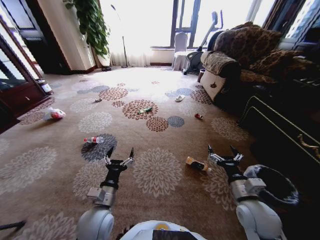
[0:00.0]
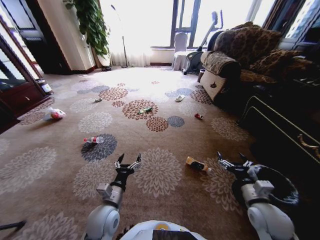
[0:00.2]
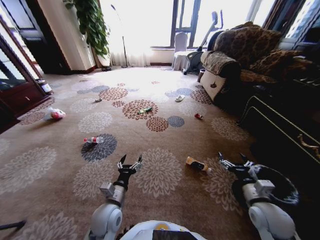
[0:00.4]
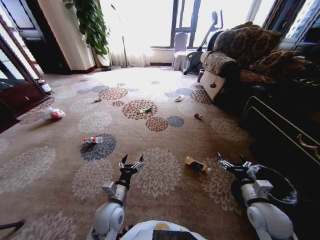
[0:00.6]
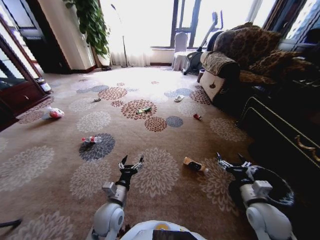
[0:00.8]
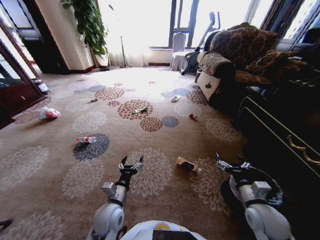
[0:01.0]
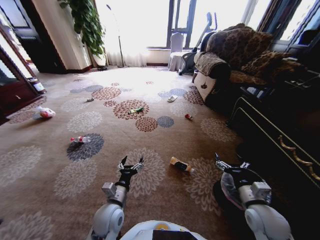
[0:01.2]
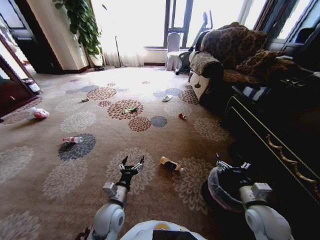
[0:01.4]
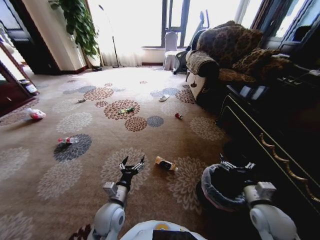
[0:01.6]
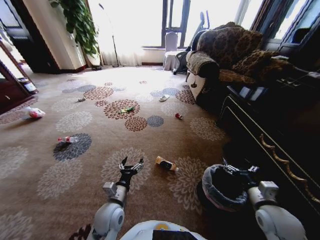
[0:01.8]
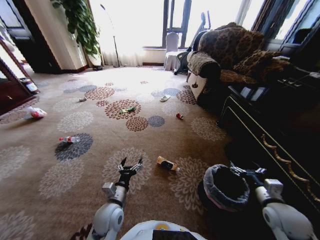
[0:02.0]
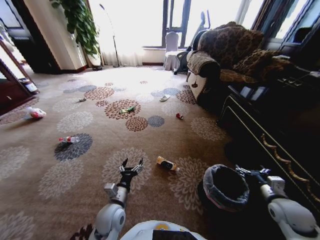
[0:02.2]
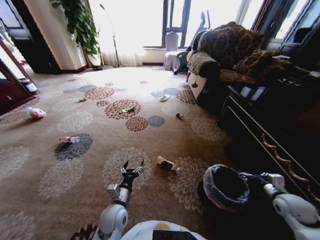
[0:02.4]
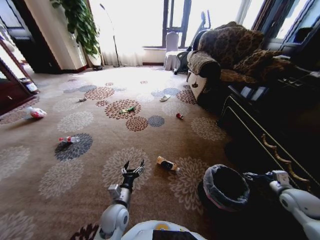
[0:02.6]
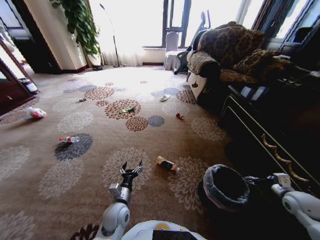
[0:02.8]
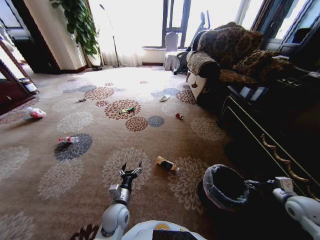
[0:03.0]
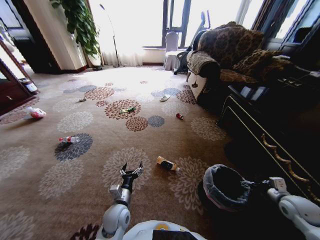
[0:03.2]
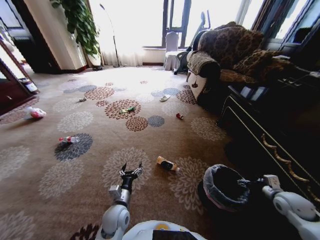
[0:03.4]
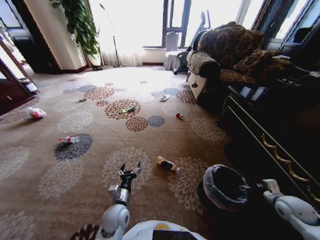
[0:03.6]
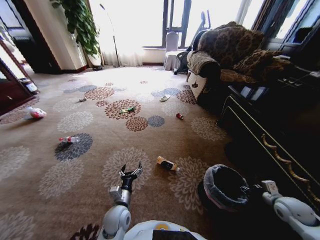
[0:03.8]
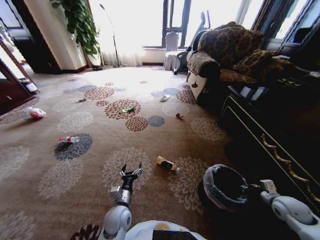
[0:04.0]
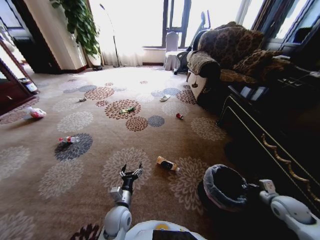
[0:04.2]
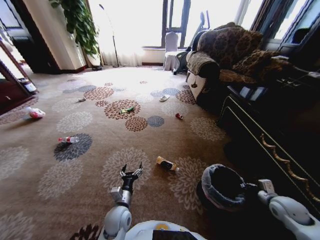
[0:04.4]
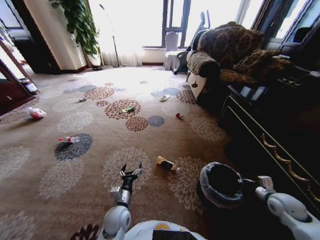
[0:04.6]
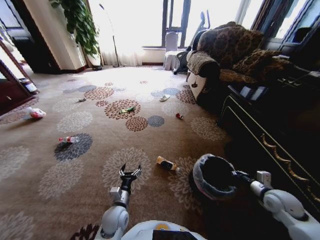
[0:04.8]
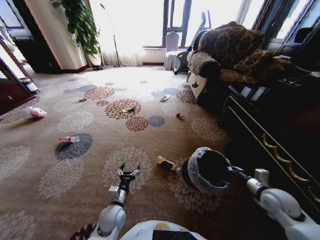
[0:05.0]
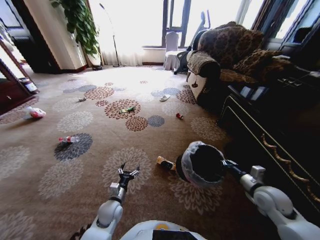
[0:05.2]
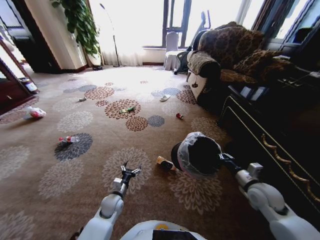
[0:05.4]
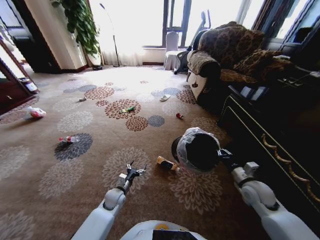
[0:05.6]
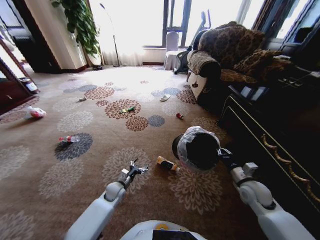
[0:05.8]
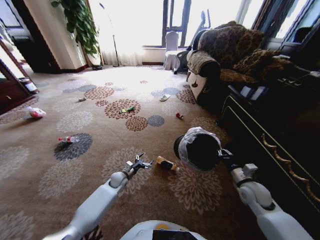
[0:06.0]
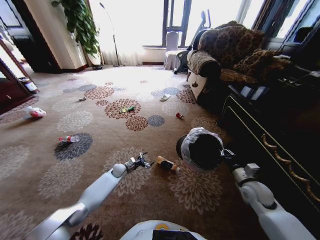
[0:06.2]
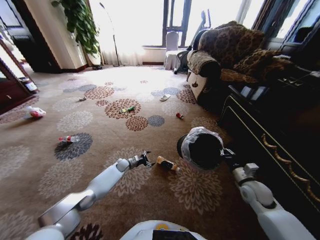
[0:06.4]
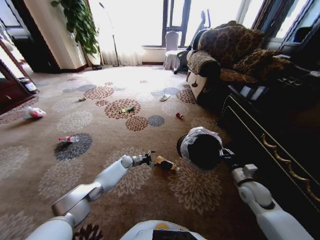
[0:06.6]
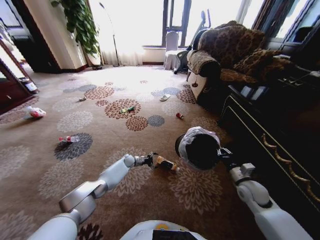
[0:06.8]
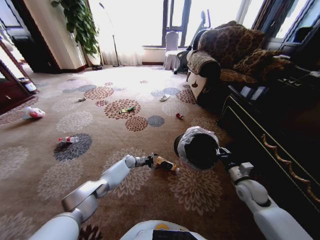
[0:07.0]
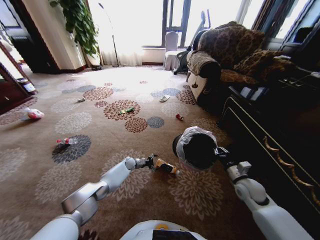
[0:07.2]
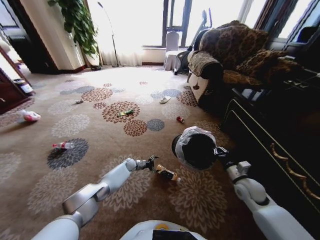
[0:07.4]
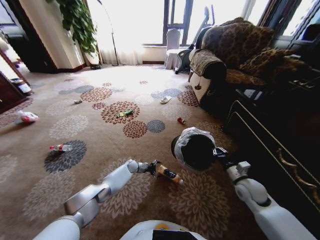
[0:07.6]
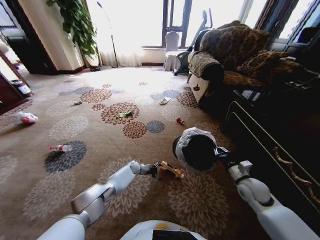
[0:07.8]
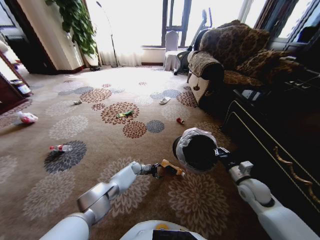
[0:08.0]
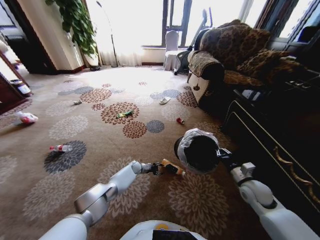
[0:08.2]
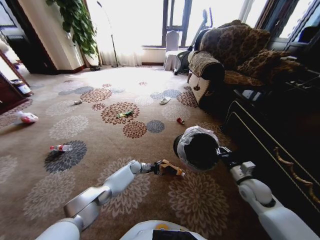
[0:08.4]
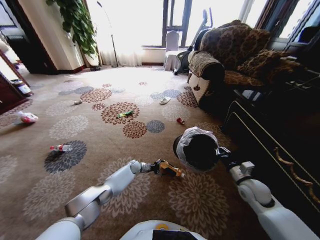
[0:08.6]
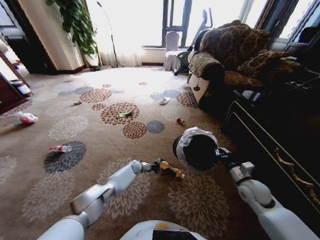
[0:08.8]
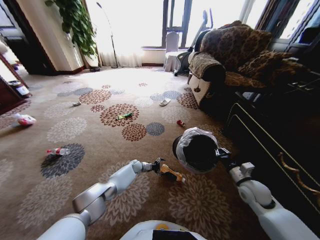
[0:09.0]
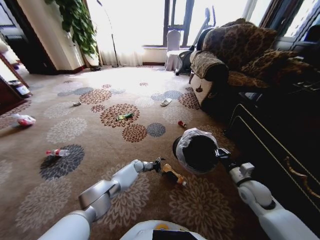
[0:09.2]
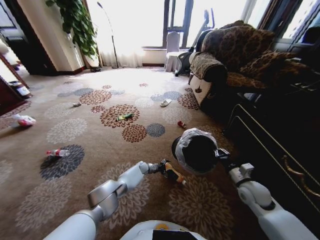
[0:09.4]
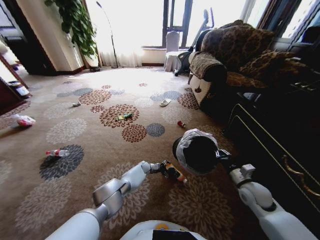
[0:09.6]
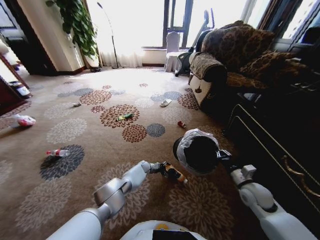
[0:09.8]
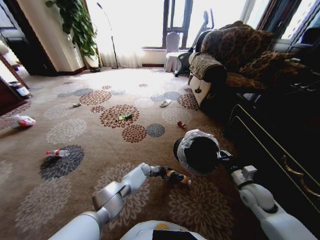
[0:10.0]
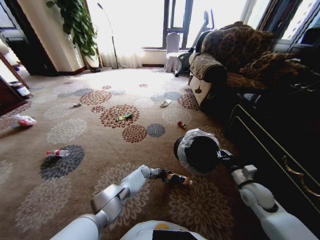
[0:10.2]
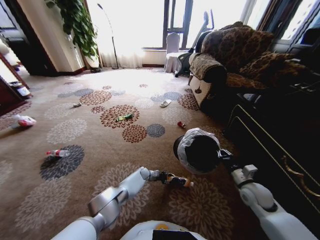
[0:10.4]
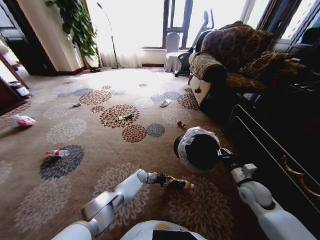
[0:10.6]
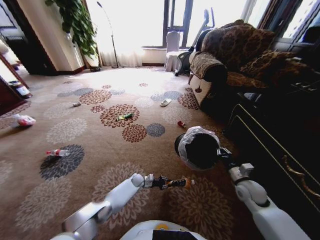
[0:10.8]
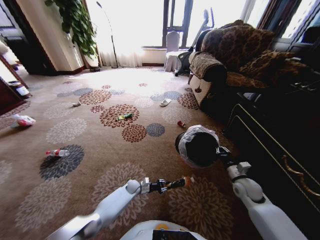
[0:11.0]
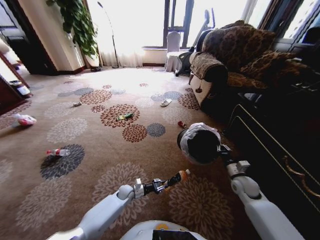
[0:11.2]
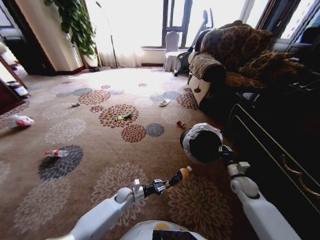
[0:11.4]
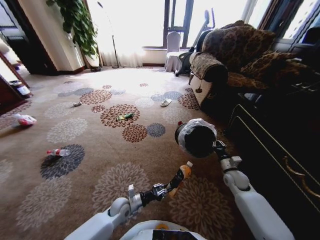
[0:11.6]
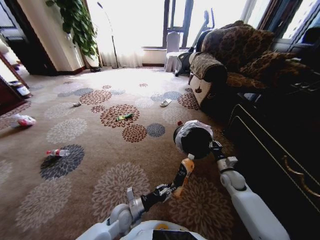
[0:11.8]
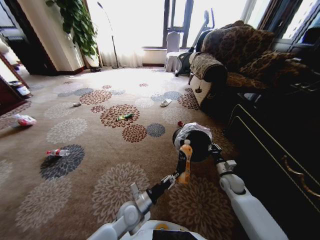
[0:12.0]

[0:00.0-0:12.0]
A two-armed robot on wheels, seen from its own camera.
Task of the whole recording: Pick up the trash from the ground and place it into the trash bin.
0:01.6 to 0:03.0: The left gripper moves downward, about 5 cm. The right gripper is displaced to the right by about 15 cm.
0:03.0 to 0:04.4: The right gripper changes place by roughly 5 cm, and closes up.
0:04.4 to 0:06.0: The left gripper shifts approximately 20 cm forward, downward and to the left, while the right gripper heads to the left, covering approximately 10 cm.
0:06.0 to 0:07.6: The left gripper travels forward and downward by approximately 15 cm.
0:07.6 to 0:09.0: The left gripper closes and opens again.
0:09.0 to 0:10.4: The left gripper travels to the right by roughly 5 cm, and closes.
0:10.4 to 0:12.0: The right gripper heads downward and forward, covering approximately 10 cm. Meanwhile the left gripper is displaced backward and upward by approximately 30 cm.

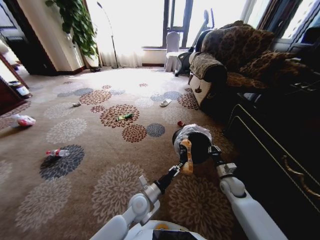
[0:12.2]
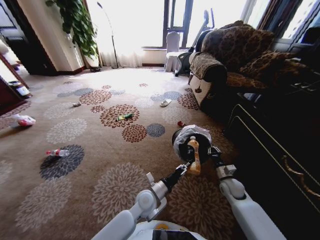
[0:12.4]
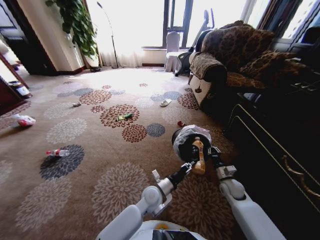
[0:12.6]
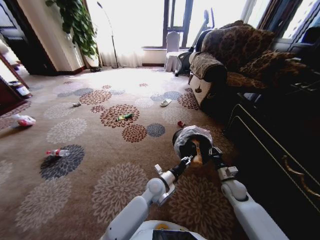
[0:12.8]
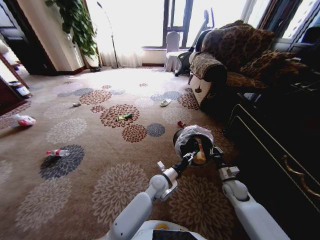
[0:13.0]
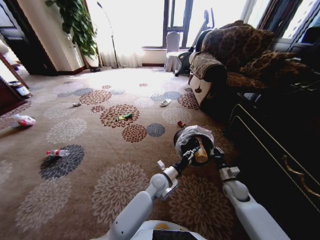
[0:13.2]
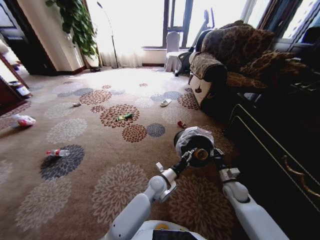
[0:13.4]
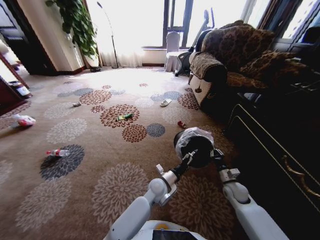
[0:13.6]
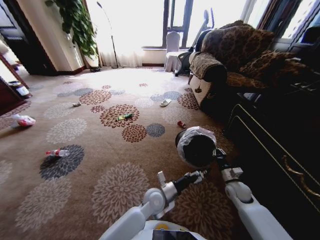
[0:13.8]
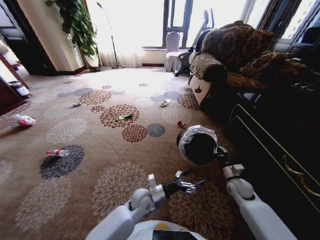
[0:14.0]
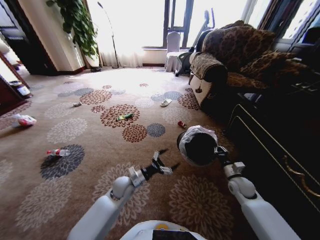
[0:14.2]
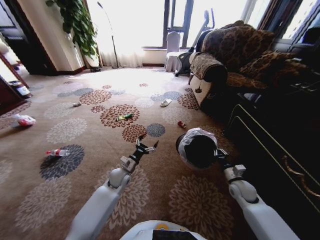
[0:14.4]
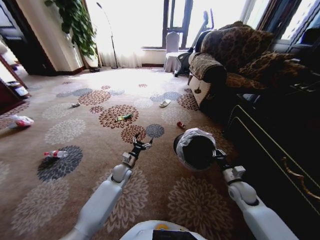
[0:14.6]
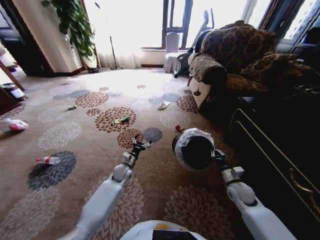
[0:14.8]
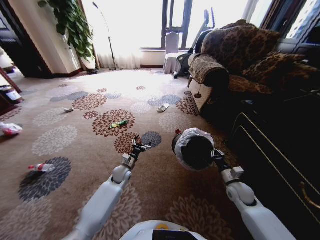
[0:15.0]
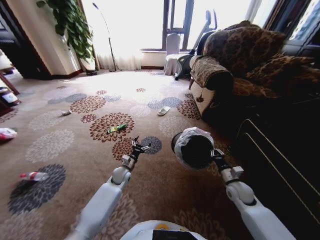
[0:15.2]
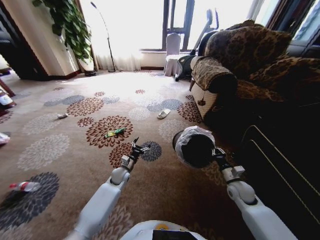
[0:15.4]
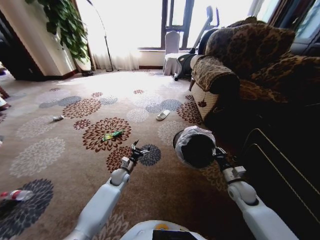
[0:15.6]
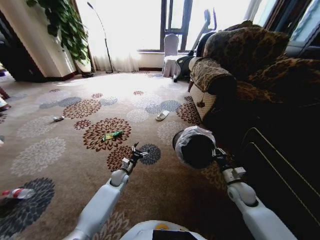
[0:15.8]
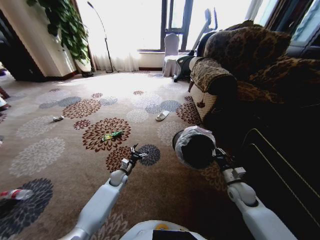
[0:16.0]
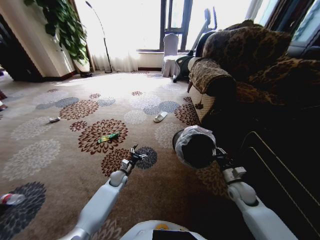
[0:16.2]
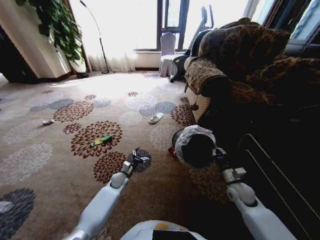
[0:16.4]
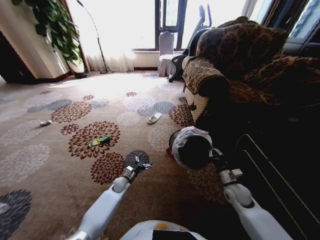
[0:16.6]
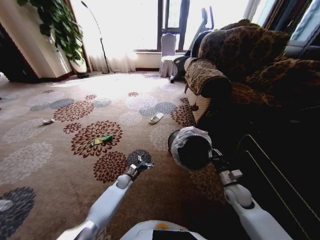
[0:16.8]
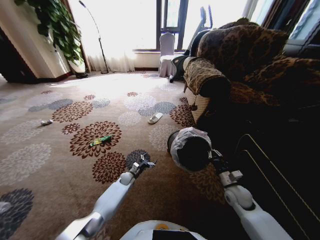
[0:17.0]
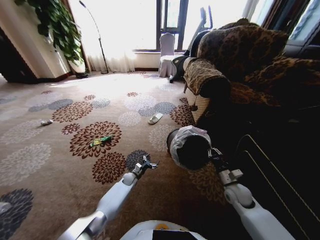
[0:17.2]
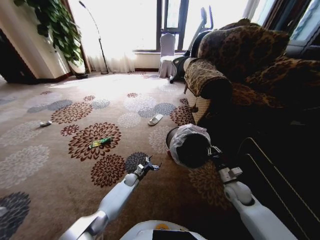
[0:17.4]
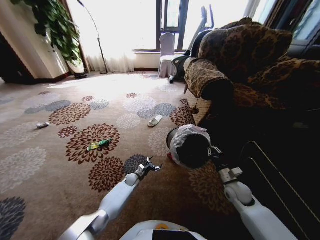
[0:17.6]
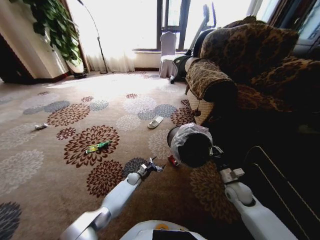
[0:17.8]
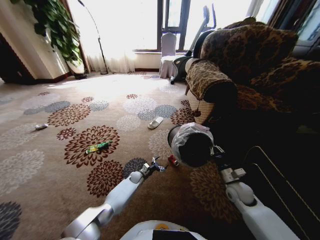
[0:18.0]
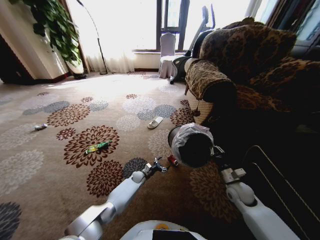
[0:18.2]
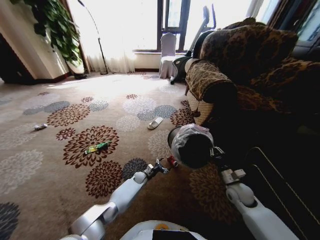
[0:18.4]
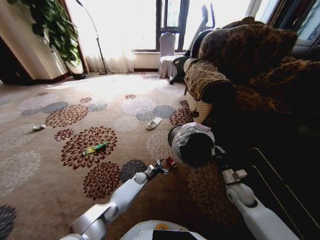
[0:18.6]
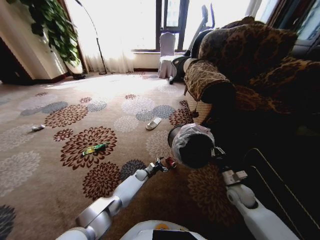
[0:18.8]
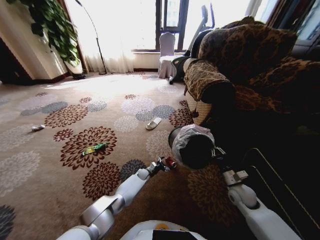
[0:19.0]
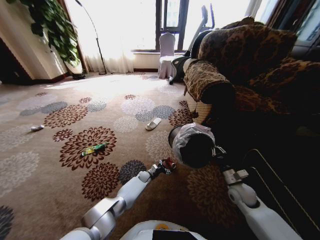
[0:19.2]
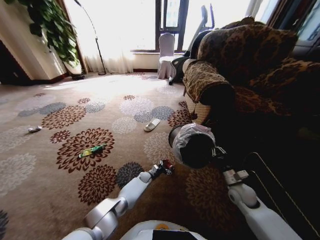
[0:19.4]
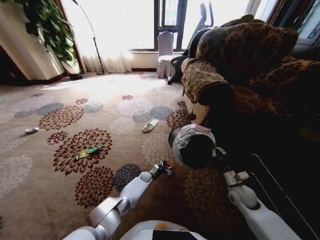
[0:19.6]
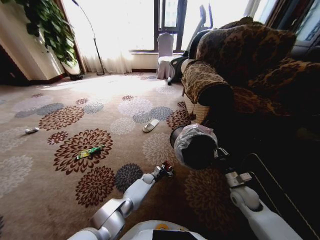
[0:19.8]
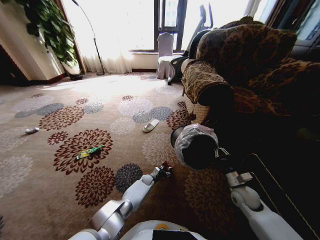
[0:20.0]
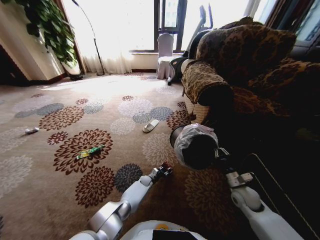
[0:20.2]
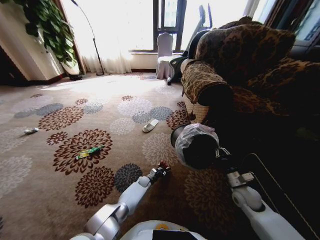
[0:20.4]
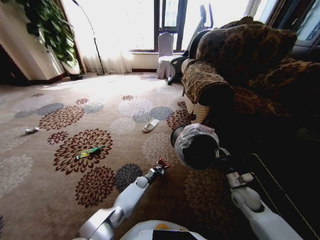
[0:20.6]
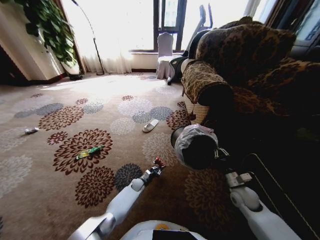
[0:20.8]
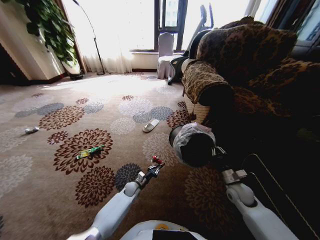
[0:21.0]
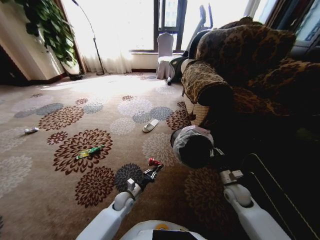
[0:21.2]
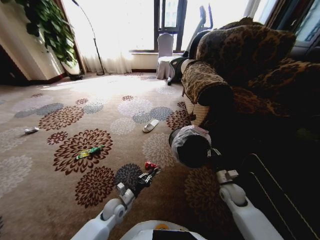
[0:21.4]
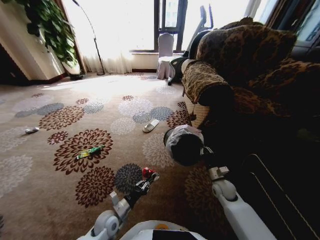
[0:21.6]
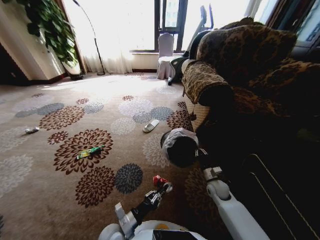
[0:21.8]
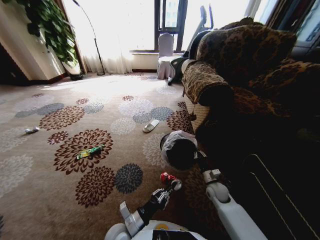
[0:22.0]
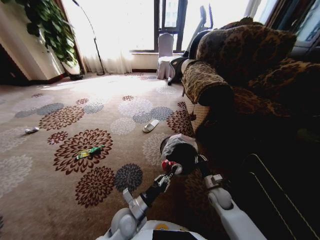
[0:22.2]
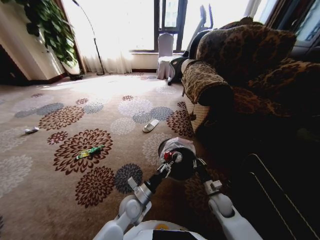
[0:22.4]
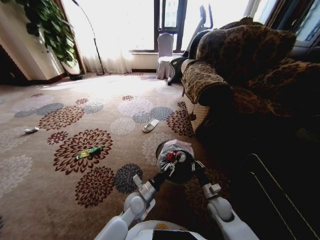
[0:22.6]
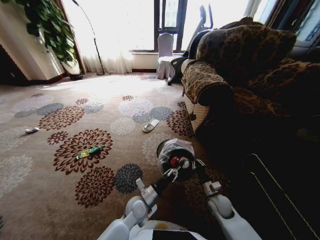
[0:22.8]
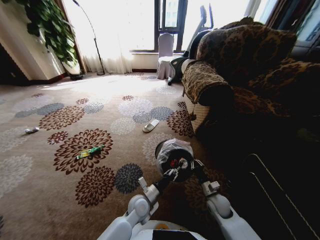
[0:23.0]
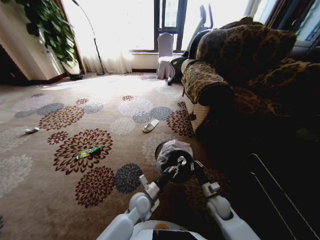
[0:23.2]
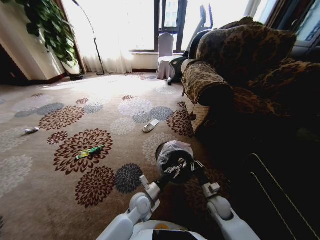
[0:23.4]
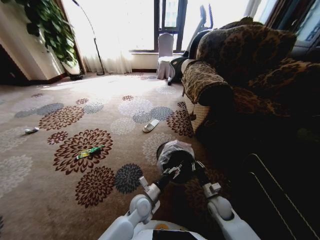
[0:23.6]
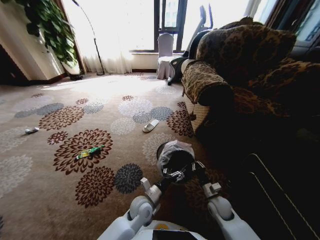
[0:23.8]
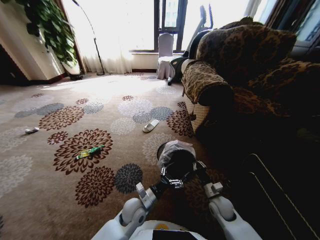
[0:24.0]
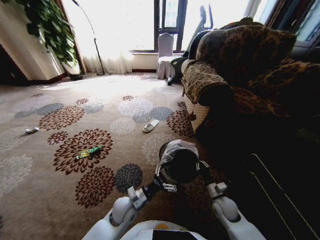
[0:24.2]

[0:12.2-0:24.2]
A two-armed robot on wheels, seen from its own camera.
Task of the whole recording: Pick up the trash from the ground and place it into the trash bin.
0:12.2 to 0:13.8: The left gripper heads to the right, covering approximately 5 cm, and opens up.
0:13.8 to 0:15.2: The left gripper is displaced to the left and forward by approximately 25 cm.
0:15.2 to 0:16.6: The left gripper heads downward, covering about 10 cm.
0:16.6 to 0:18.2: The left gripper heads to the right, forward and downward, covering approximately 10 cm.
0:18.2 to 0:19.8: The left gripper travels to the right by roughly 5 cm.
0:19.8 to 0:21.2: The left gripper moves backward, to the left and upward, roughly 20 cm, and closes.
0:21.2 to 0:22.6: The right gripper is displaced to the left and downward by some 10 cm. Meanwhile the left gripper shifts approximately 15 cm upward and to the right, and goes backward and returns, roughly 15 cm each way.
0:22.6 to 0:24.2: The left gripper opens.
